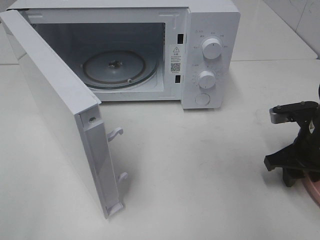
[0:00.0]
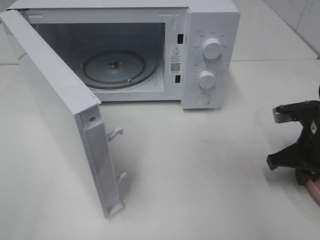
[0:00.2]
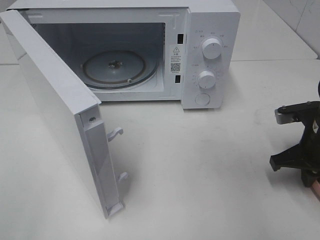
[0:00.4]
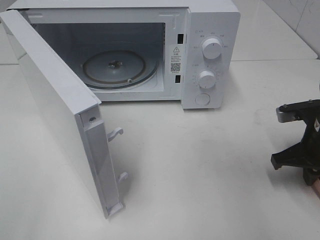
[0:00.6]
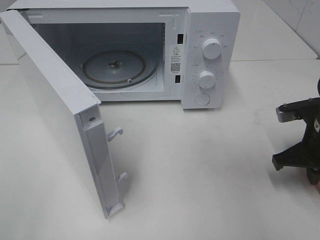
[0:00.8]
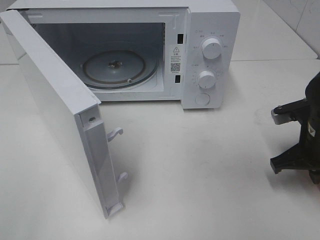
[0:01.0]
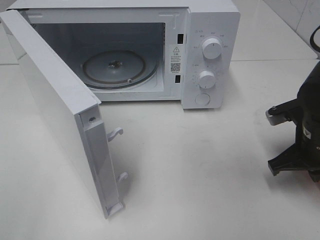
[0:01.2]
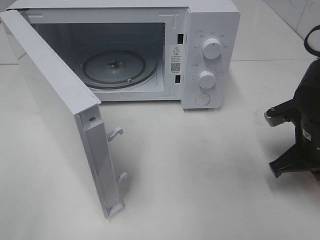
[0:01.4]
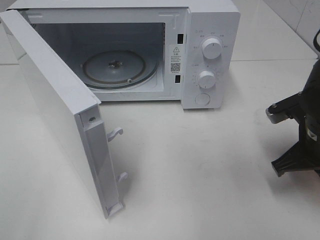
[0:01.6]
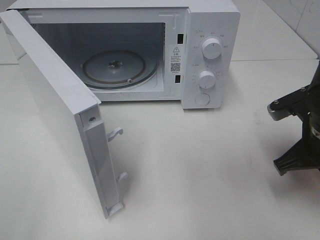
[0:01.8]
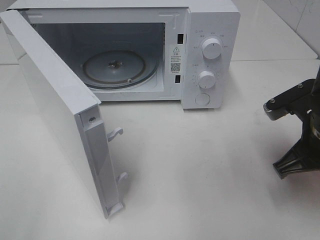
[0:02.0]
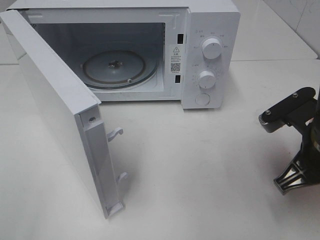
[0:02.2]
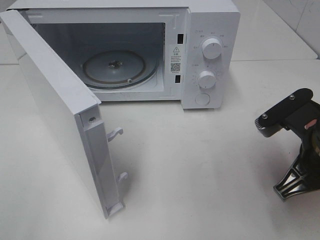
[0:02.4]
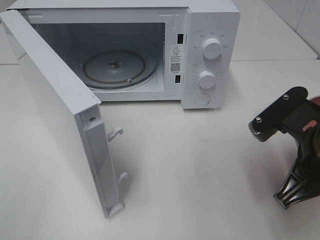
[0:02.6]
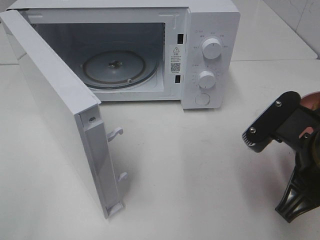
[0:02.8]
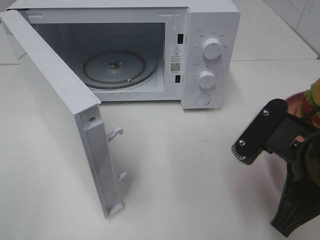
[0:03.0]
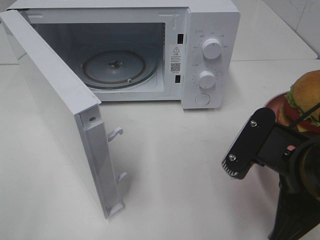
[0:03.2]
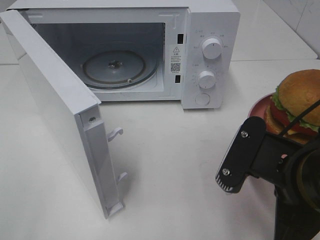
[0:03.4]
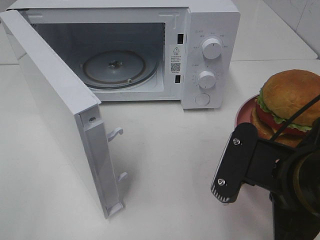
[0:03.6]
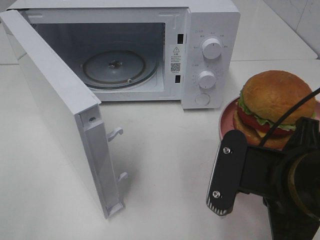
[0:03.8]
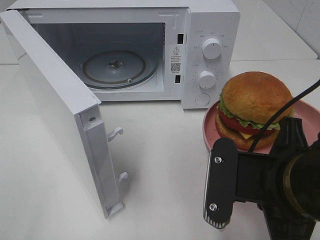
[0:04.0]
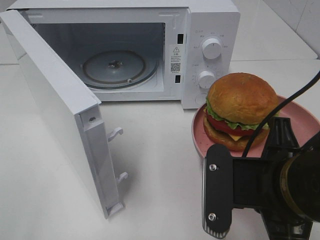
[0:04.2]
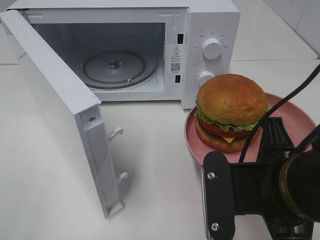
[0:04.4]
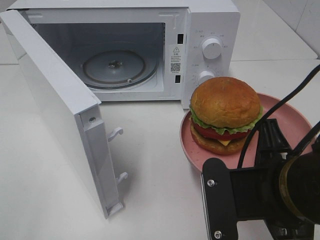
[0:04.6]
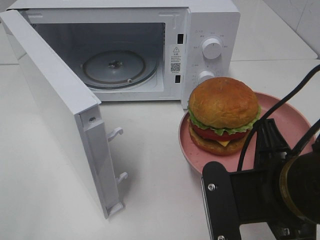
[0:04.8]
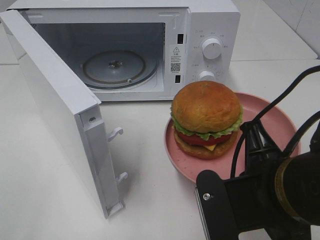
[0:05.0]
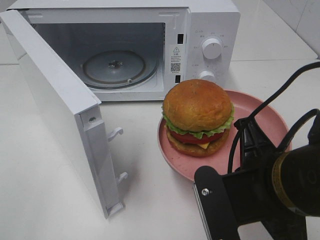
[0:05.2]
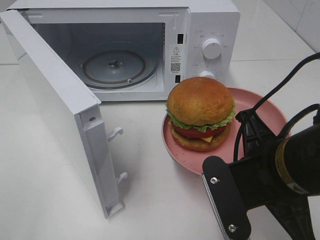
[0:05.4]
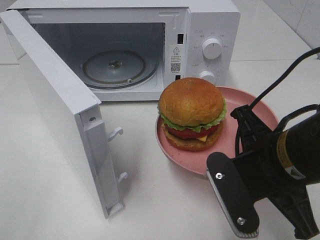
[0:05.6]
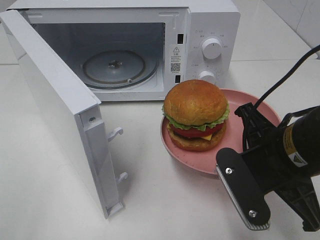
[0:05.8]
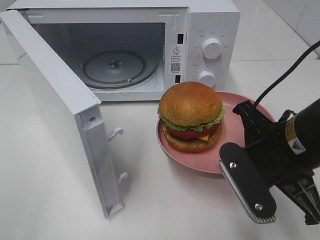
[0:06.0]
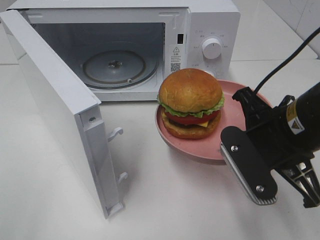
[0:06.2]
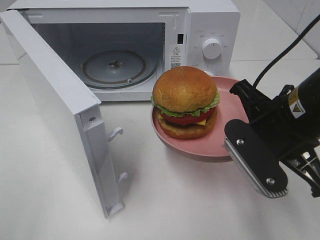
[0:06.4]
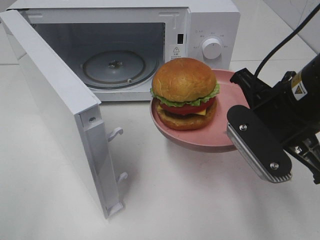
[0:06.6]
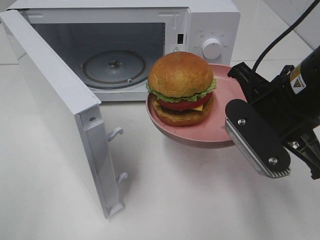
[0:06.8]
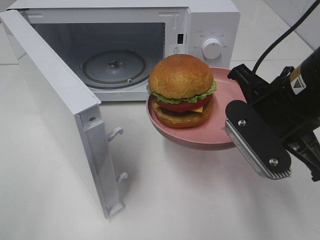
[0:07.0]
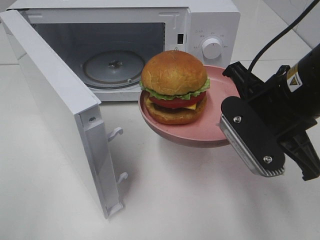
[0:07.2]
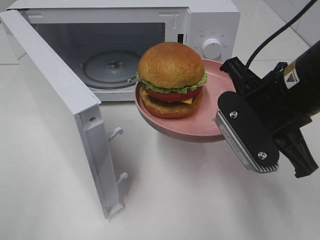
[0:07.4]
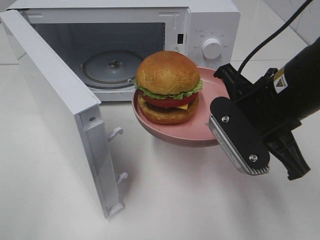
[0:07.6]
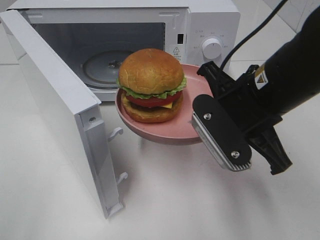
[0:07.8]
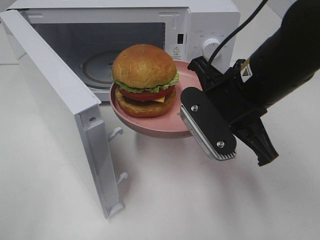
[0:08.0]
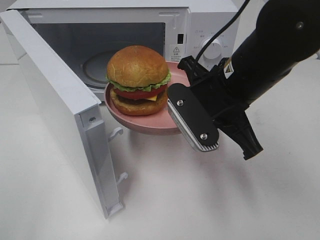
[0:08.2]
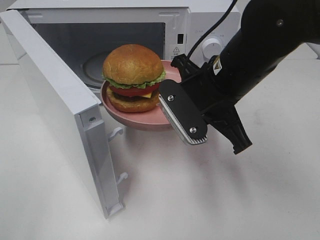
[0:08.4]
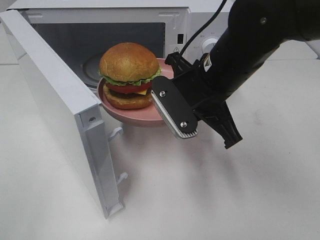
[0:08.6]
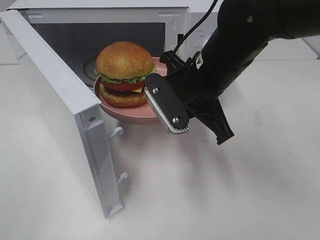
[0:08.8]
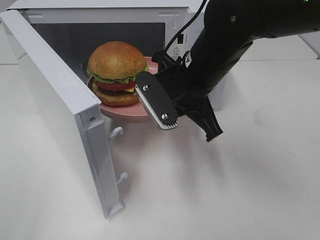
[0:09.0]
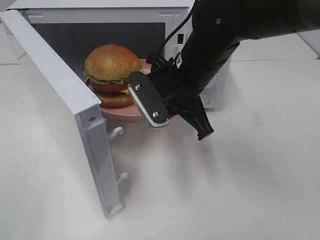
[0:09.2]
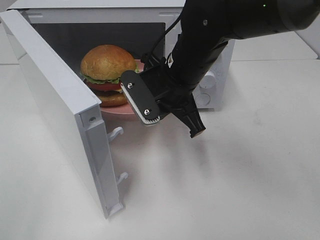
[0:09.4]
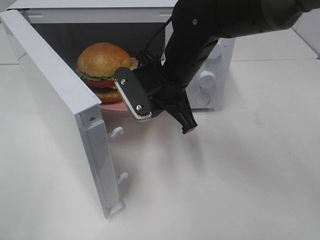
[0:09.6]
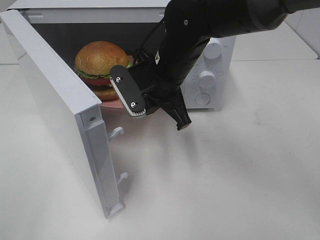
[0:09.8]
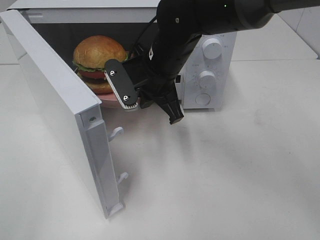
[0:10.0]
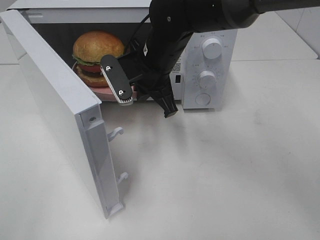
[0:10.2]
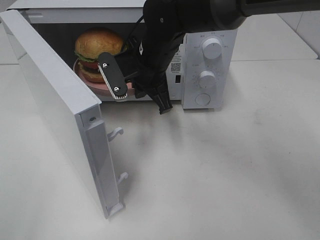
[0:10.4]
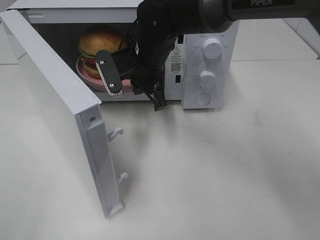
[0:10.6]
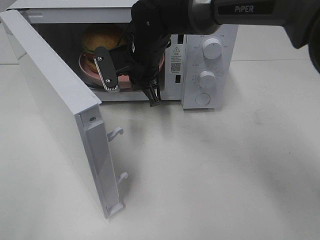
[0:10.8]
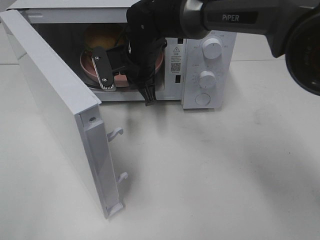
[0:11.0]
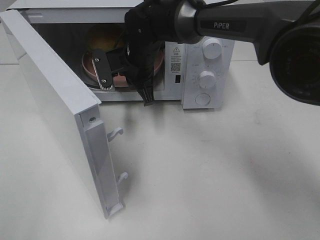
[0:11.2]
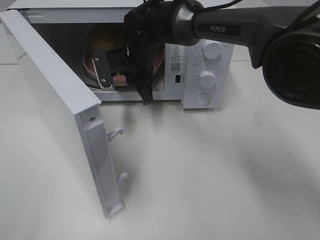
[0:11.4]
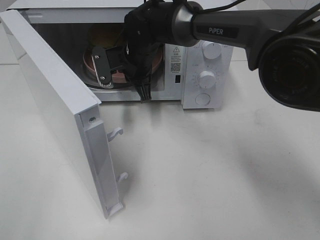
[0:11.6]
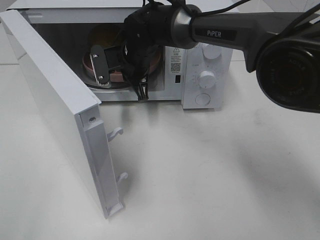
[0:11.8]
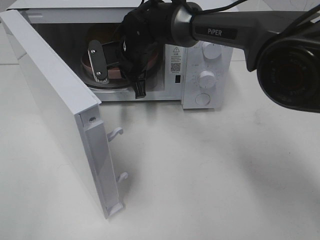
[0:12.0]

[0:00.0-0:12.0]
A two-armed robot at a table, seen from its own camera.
Task of the whole recording: Heat the burger.
0:00.0 to 0:01.6: The right gripper closes up.
0:01.6 to 0:03.0: The right gripper shifts approximately 10 cm backward and to the left.
0:04.4 to 0:06.0: The right gripper travels forward by some 5 cm.
0:06.0 to 0:07.6: The right gripper moves roughly 5 cm.
0:07.6 to 0:09.0: The right gripper shifts about 10 cm forward and to the left.
0:09.0 to 0:10.4: The right gripper moves forward and to the left, some 10 cm.
0:10.4 to 0:12.0: The right gripper shifts about 5 cm forward.

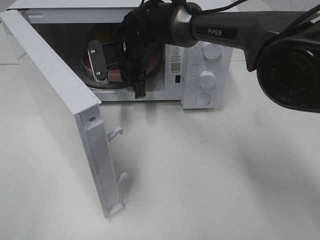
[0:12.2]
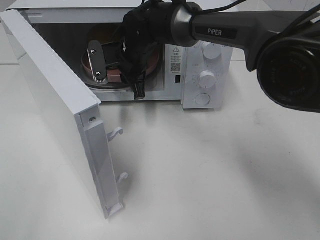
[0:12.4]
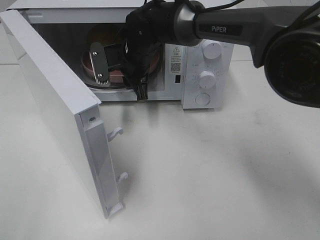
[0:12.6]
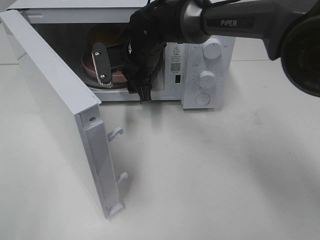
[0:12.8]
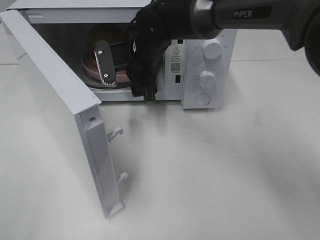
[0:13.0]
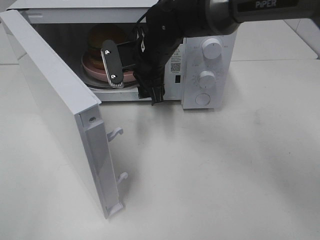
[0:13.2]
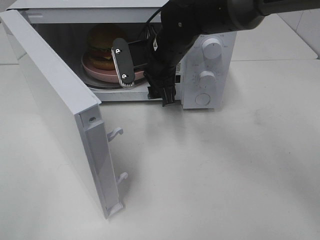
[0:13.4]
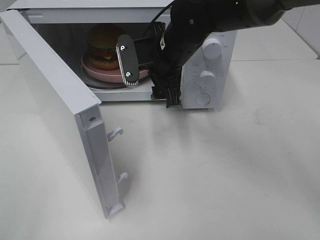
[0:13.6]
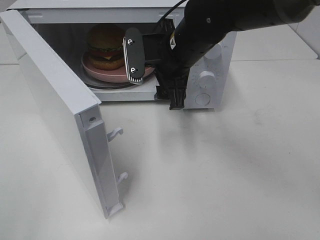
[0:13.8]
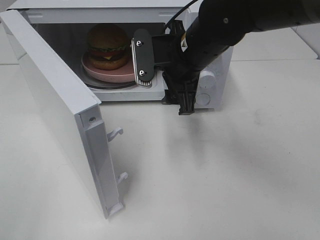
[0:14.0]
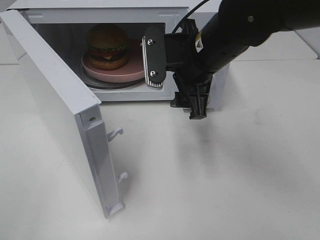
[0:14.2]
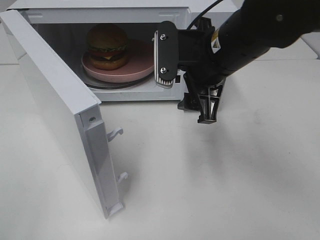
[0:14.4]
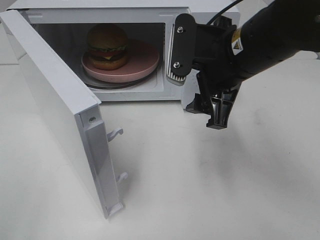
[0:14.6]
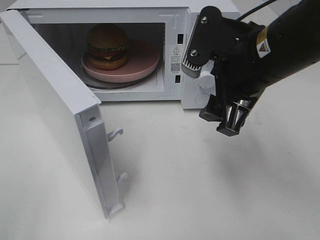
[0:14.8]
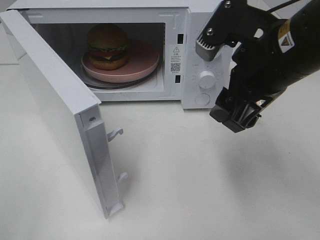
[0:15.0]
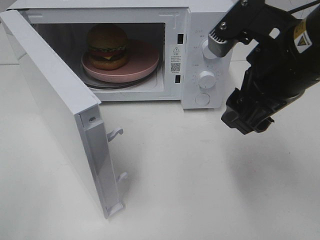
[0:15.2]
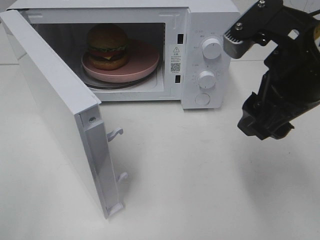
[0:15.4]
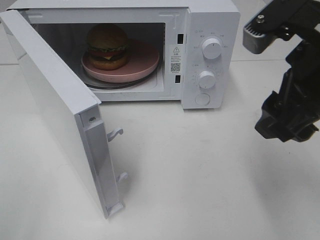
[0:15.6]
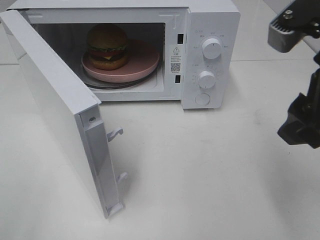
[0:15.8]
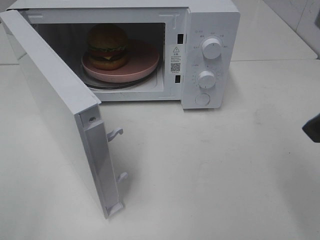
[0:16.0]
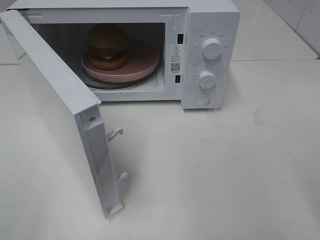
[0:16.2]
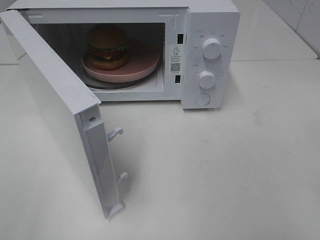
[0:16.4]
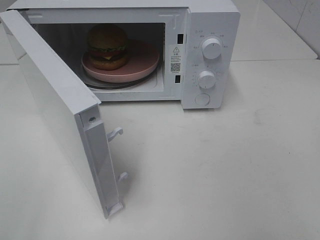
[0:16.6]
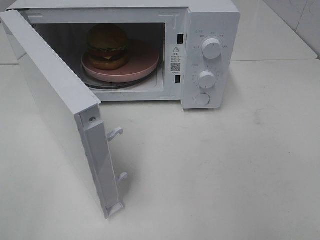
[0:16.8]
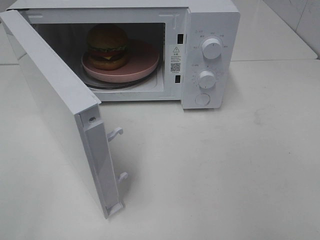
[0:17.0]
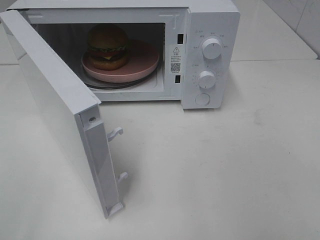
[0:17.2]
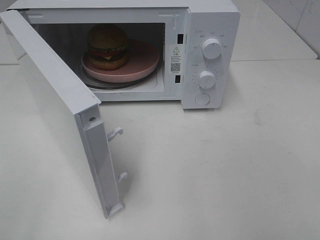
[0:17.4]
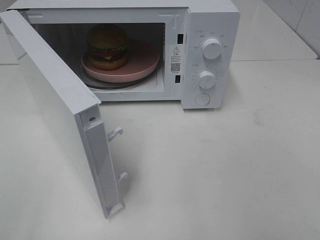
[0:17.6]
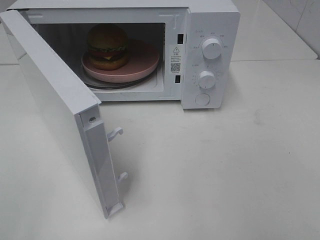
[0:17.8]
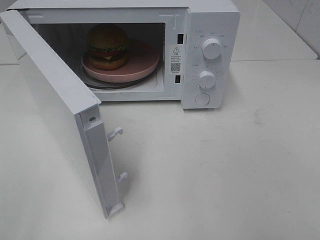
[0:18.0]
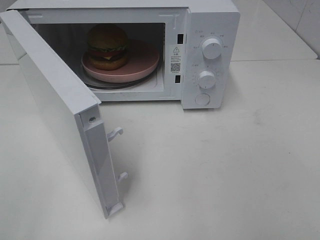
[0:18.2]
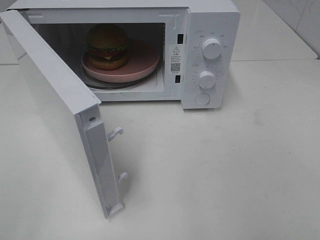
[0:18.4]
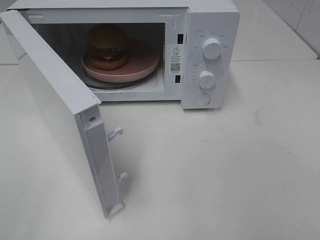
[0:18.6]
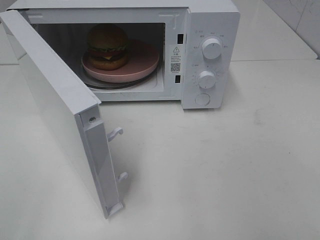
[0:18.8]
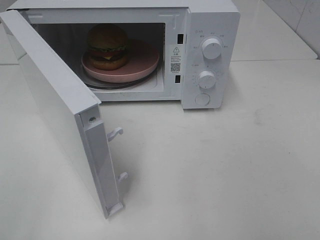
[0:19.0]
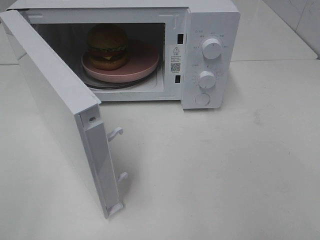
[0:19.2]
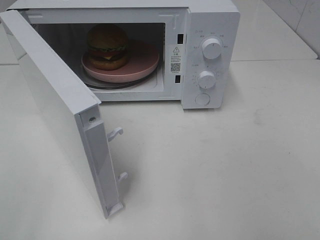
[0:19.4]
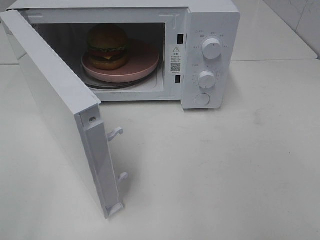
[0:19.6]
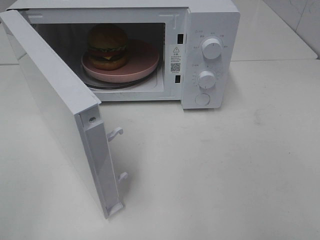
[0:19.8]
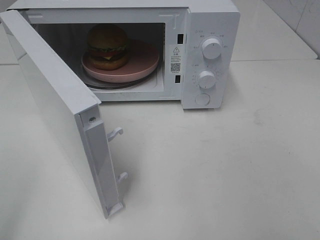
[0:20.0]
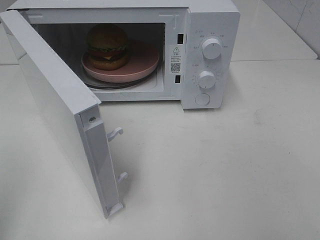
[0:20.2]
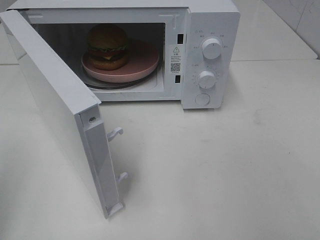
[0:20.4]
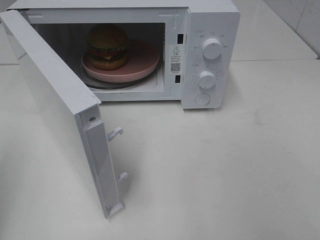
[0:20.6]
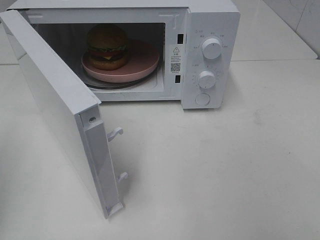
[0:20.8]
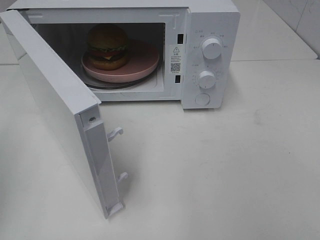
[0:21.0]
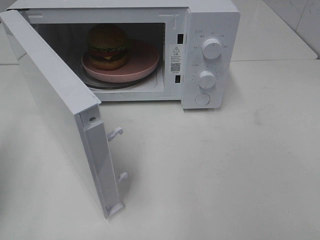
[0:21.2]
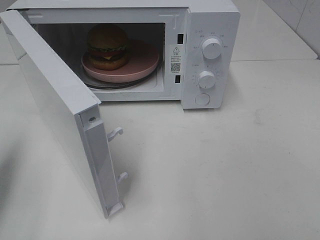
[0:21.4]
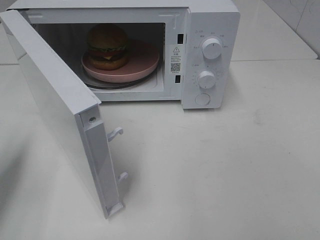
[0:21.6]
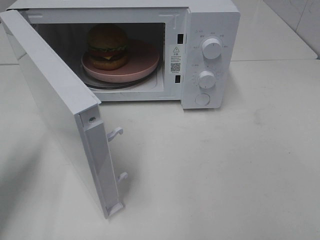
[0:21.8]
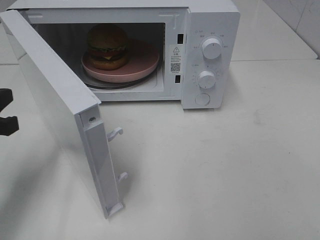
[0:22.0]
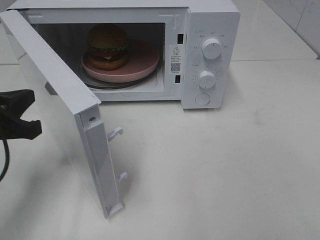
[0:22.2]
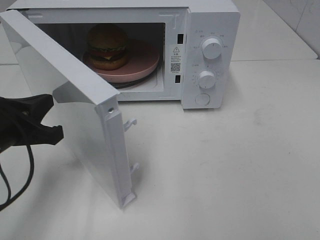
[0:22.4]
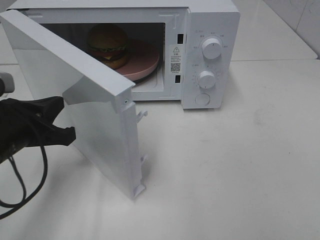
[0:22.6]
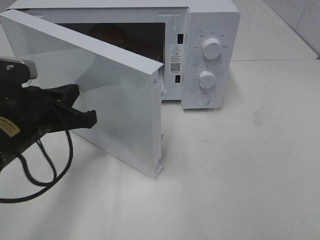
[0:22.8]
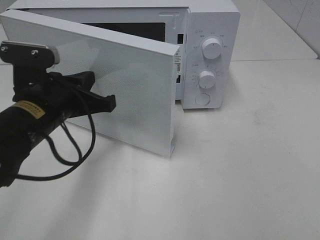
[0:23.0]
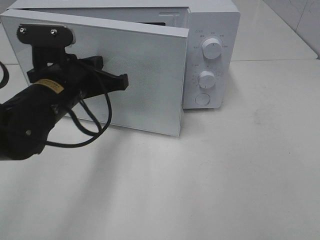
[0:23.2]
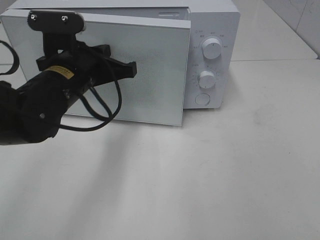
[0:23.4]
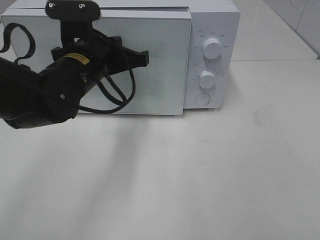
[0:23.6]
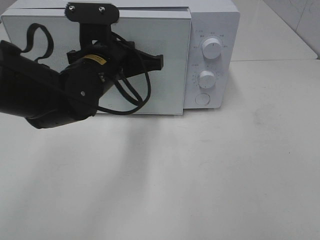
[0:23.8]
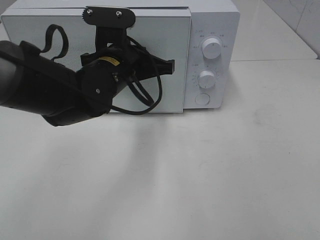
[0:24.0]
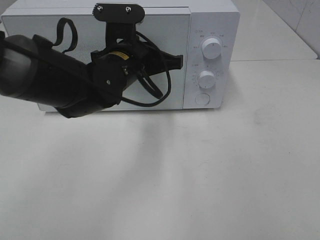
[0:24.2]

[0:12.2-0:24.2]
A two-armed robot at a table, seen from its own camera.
Task of the whole recording: Heat the burger.
0:12.2 to 0:13.8: The right gripper is displaced backward, to the right and upward by roughly 15 cm, and opens its fingers.
0:13.8 to 0:15.2: The right gripper heads backward, to the right and upward, covering approximately 20 cm.
0:15.2 to 0:16.6: The right gripper shifts approximately 20 cm backward and to the right.
0:21.2 to 0:22.6: The left gripper moves to the right and downward, approximately 15 cm.
0:22.6 to 0:24.2: The left gripper is displaced to the right and forward by about 20 cm.
